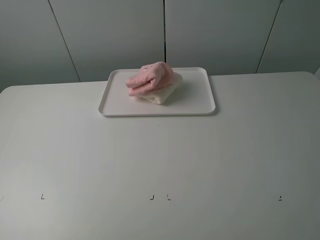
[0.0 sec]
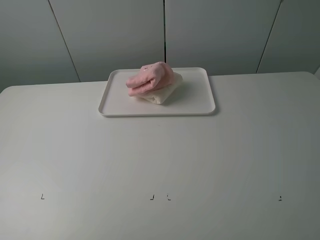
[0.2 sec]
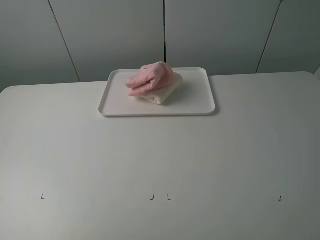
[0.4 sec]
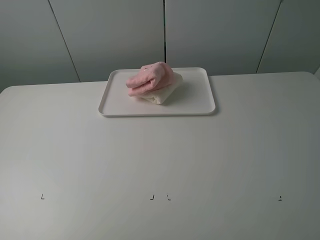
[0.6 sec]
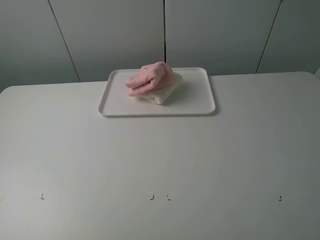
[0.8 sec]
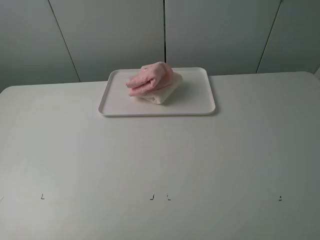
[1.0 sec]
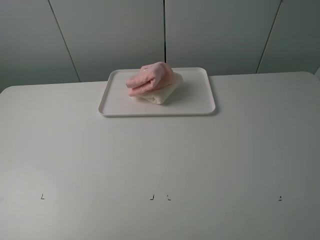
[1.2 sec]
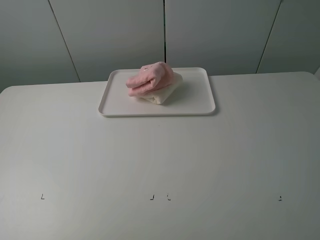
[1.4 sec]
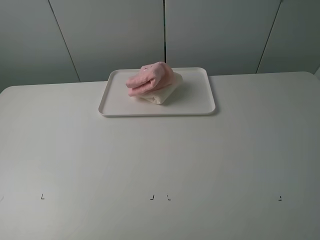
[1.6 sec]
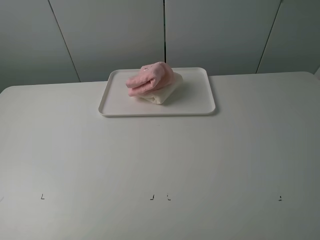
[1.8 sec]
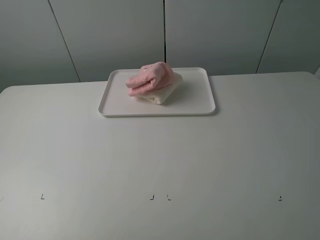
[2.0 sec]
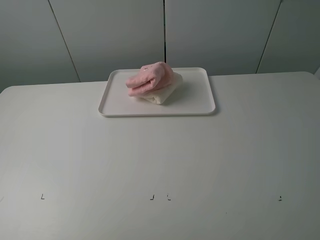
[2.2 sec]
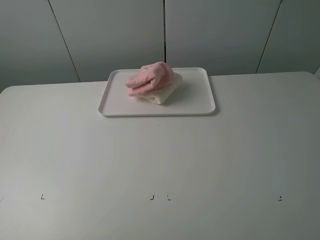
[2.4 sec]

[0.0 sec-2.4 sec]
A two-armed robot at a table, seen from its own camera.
Task of the whole recording: fold one of the towels by two grippers and place it on the tray,then fold another towel by two grippers and place it on the folded towel.
1.2 sec to 2.4 sec: Both grippers stay put.
